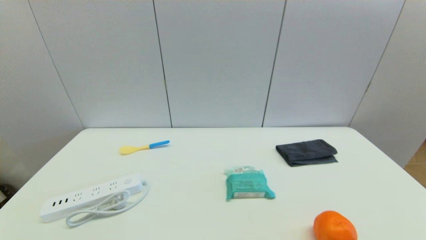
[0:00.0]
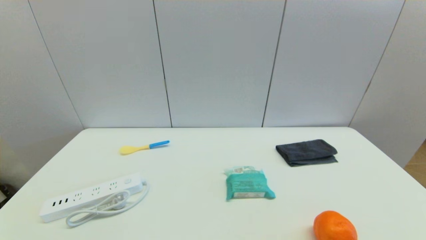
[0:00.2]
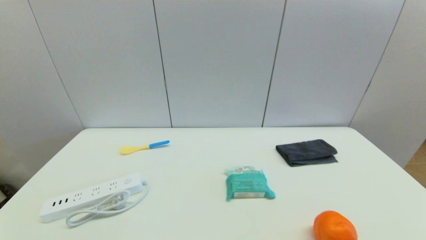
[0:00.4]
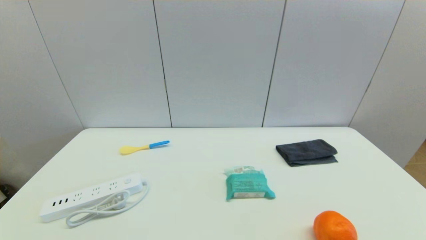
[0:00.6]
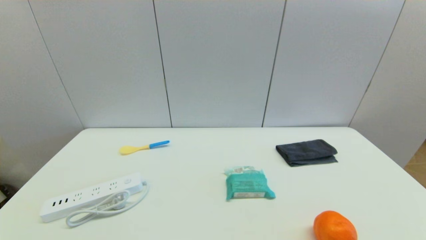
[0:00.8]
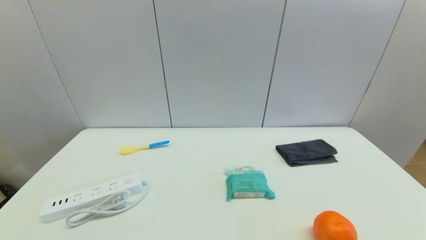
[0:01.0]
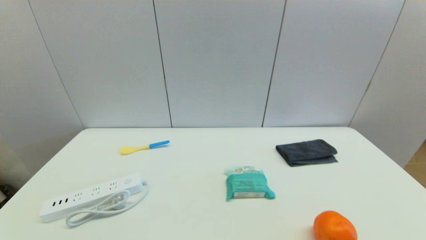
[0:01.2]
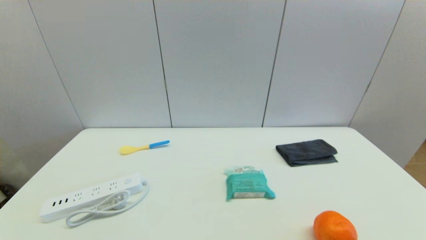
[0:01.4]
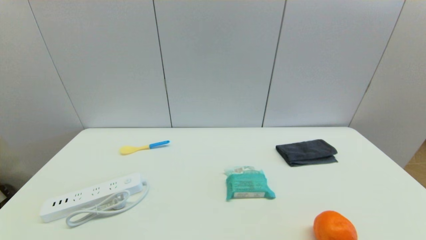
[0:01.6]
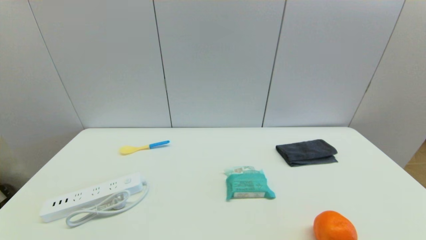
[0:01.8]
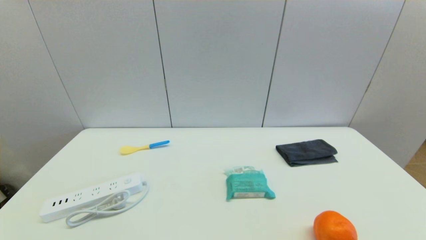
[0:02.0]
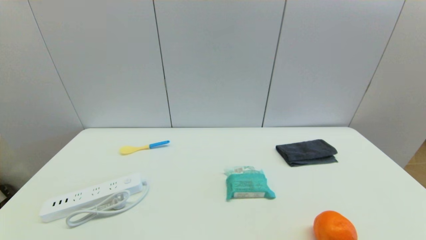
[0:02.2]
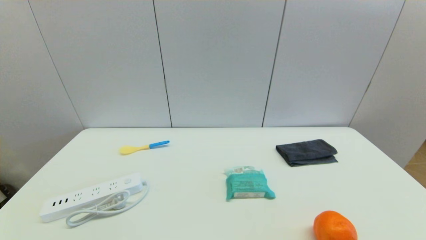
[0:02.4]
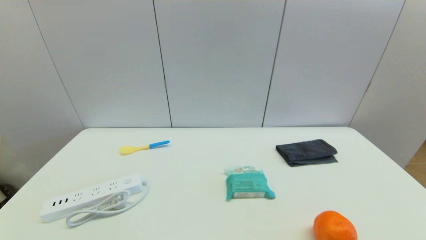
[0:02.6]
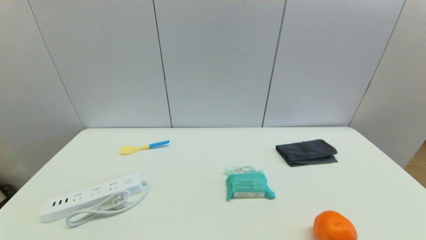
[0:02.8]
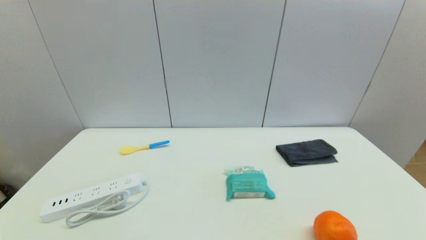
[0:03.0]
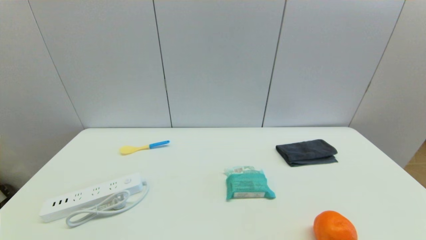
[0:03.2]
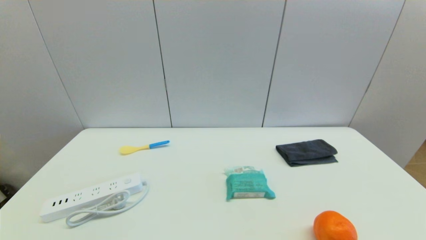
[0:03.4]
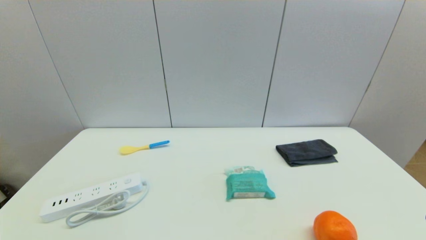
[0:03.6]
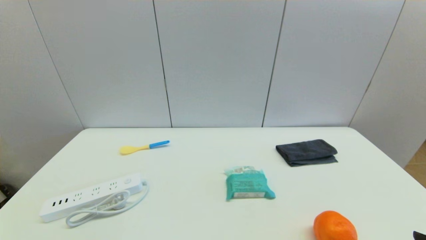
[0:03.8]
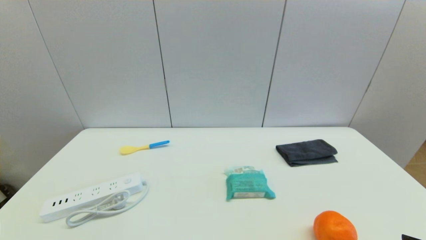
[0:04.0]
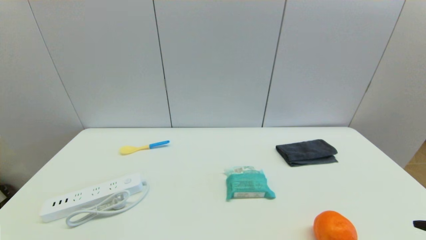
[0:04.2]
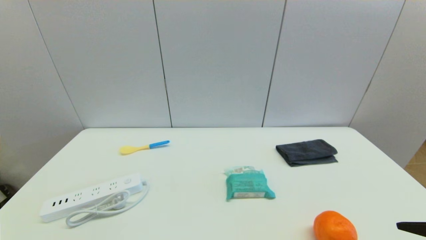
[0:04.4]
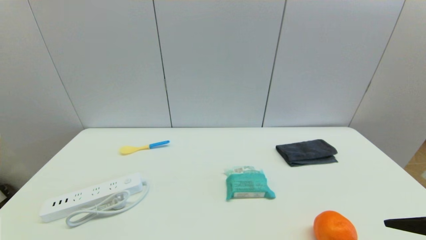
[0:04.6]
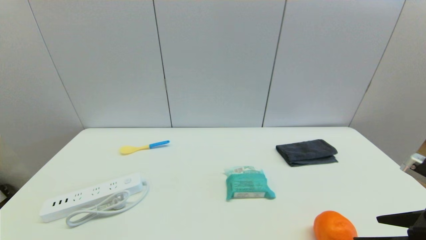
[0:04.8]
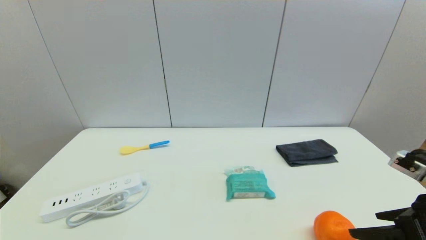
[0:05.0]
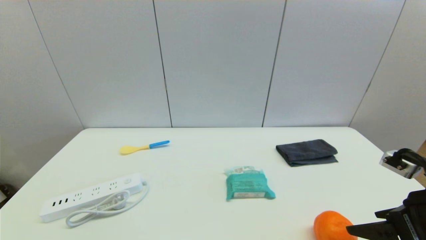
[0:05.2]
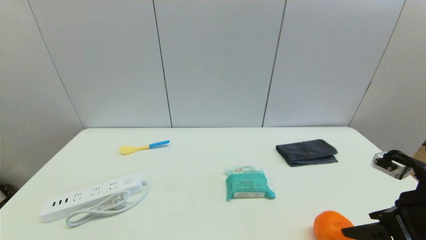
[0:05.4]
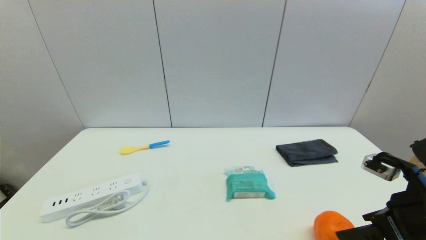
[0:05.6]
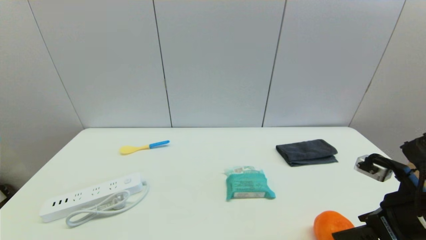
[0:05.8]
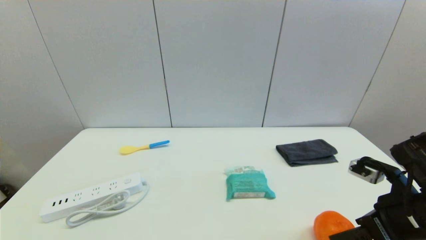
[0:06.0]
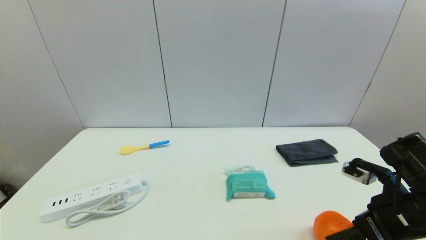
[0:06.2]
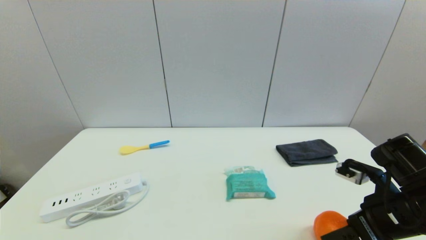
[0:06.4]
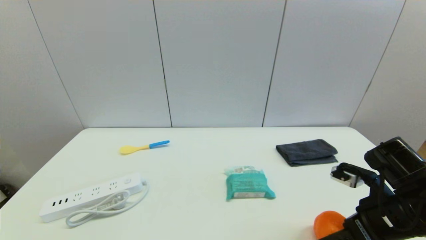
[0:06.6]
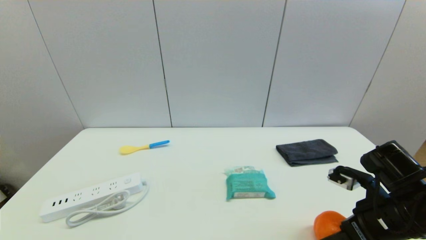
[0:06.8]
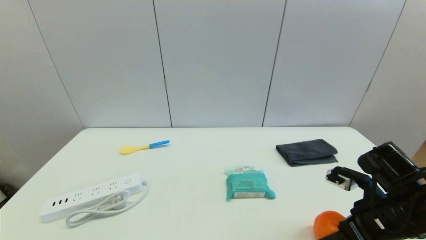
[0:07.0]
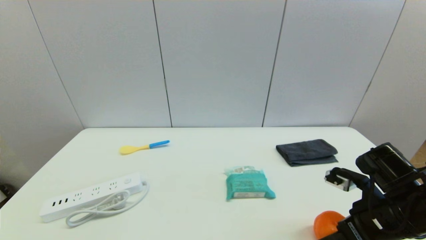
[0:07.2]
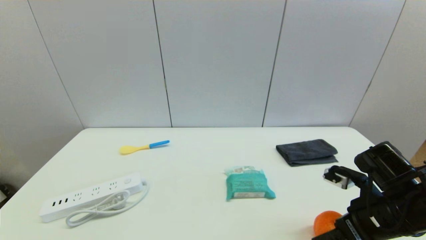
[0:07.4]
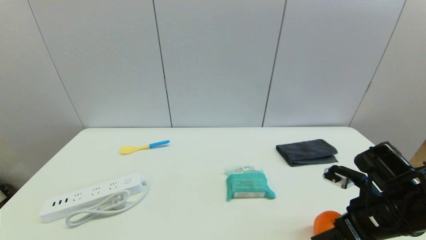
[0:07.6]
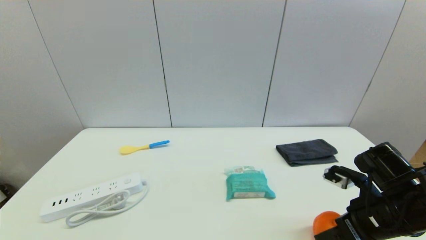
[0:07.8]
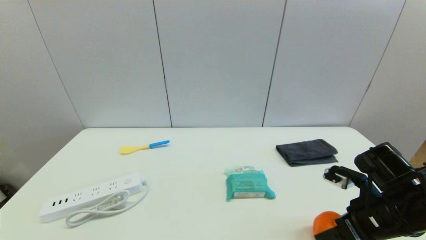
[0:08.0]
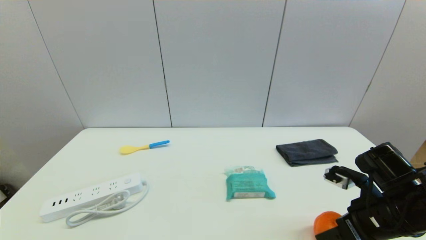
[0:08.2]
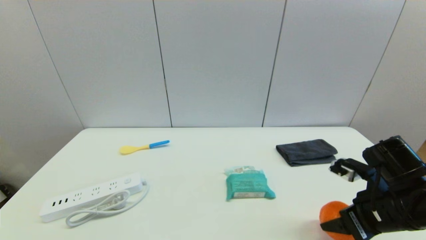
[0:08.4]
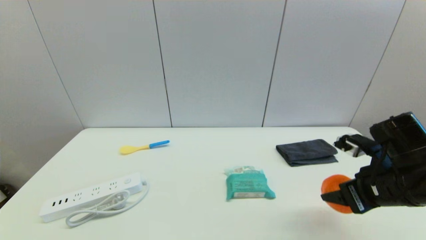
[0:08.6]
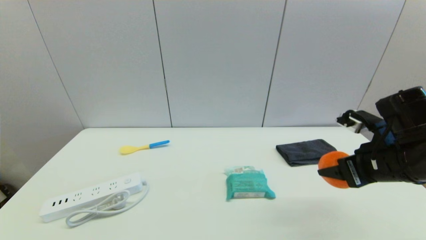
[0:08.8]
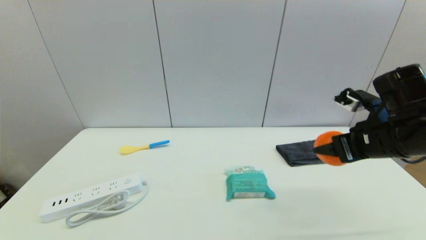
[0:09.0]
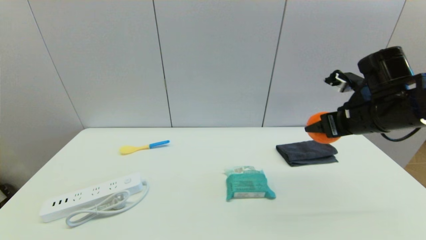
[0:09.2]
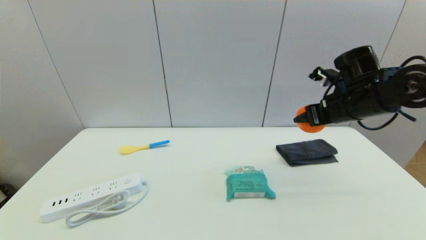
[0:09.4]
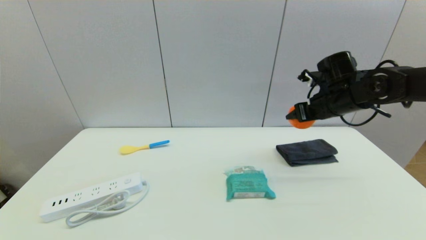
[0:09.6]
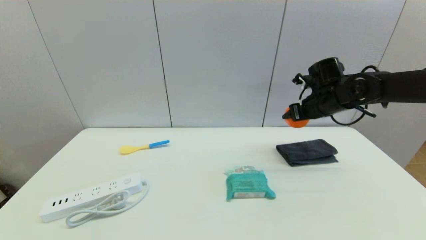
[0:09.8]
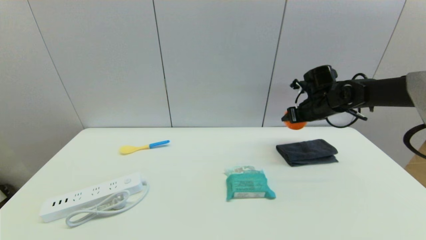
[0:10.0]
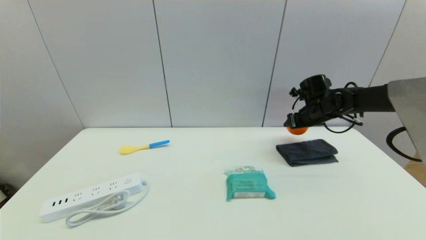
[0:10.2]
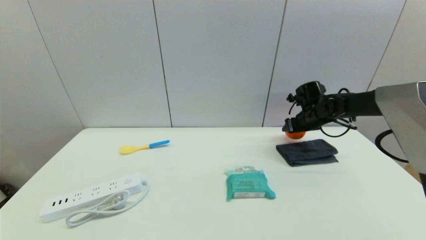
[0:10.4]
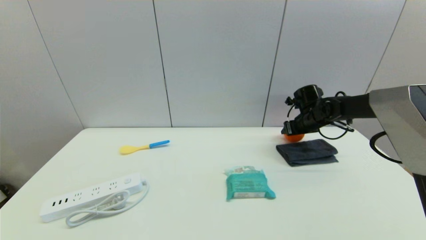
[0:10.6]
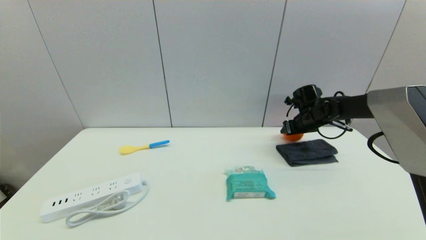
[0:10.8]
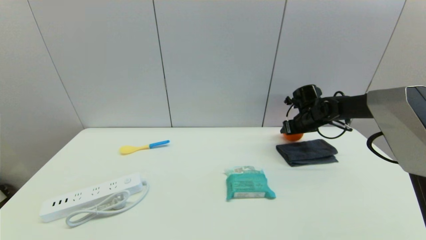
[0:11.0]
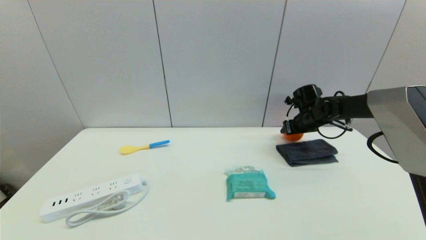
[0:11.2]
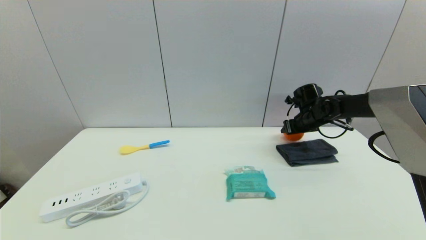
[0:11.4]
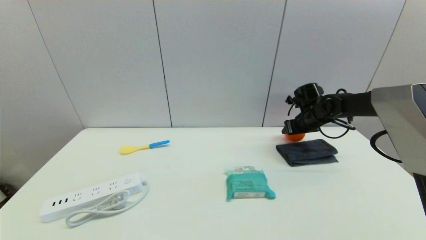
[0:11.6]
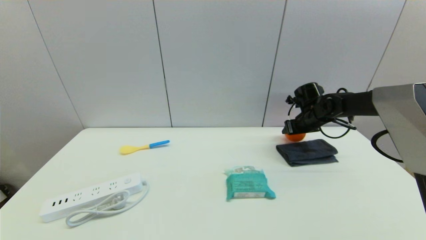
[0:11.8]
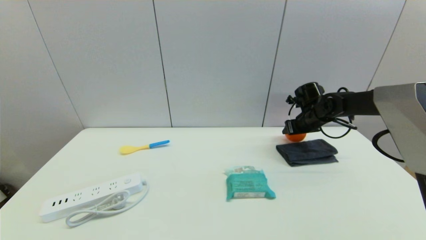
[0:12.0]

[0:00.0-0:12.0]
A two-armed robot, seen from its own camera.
Step, 0:03.8 to 0:08.0: Grasp the orange with right gripper.
0:00.0 to 0:01.6: The two grippers keep their place.
0:04.4 to 0:06.0: The right gripper shifts some 10 cm forward.
0:06.0 to 0:07.6: The grippers make only small movements.
0:07.6 to 0:09.0: The right gripper moves upward and forward, approximately 10 cm, and closes up.
0:09.0 to 0:10.4: The right gripper shifts about 25 cm forward and downward.
0:10.4 to 0:12.0: There are only small adjustments of the grippers.

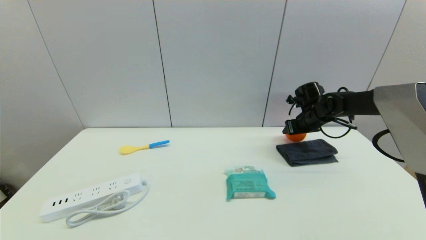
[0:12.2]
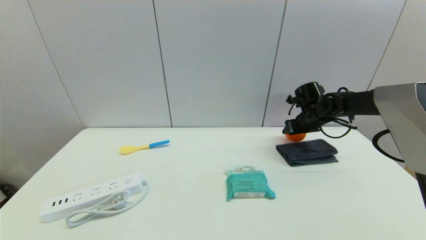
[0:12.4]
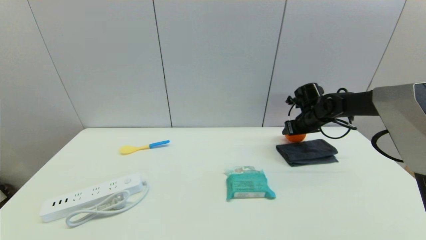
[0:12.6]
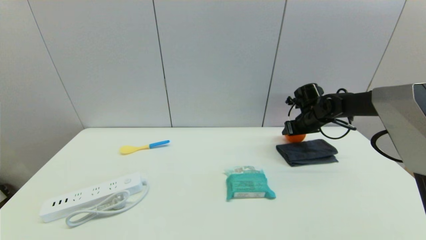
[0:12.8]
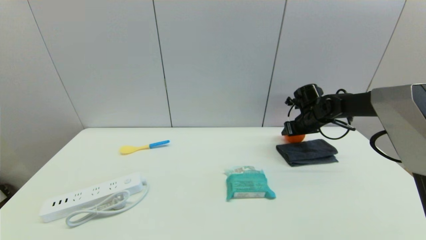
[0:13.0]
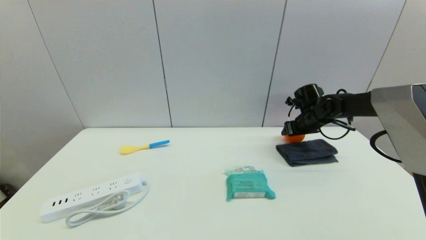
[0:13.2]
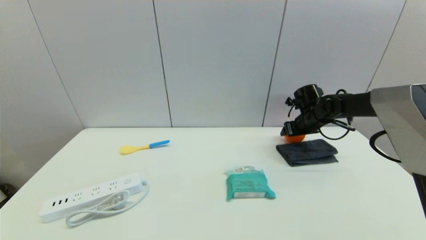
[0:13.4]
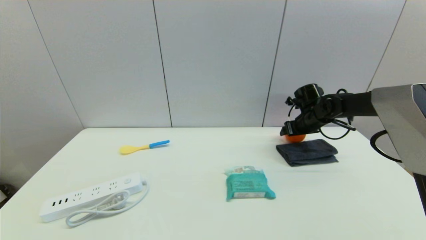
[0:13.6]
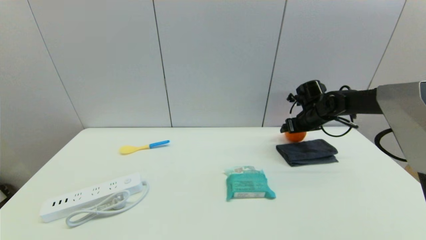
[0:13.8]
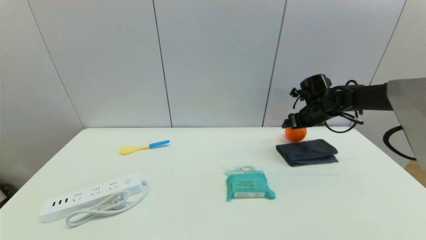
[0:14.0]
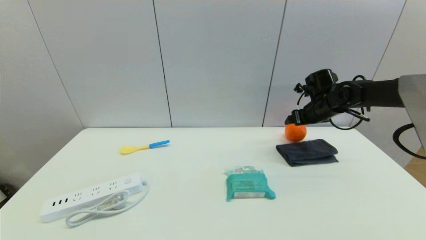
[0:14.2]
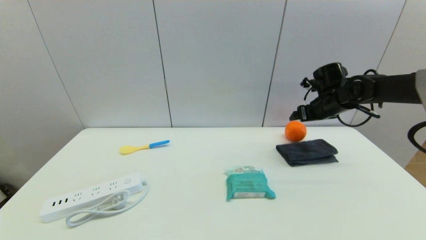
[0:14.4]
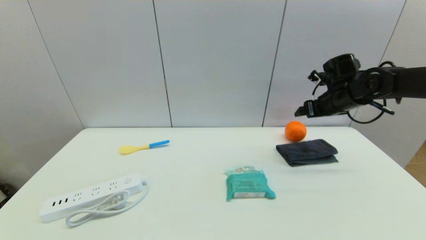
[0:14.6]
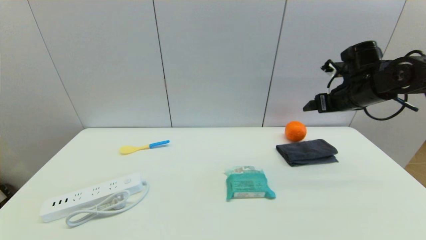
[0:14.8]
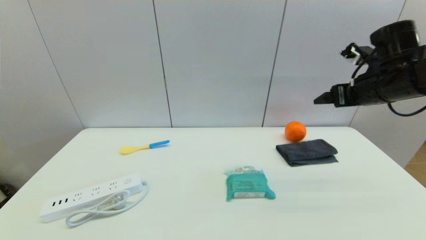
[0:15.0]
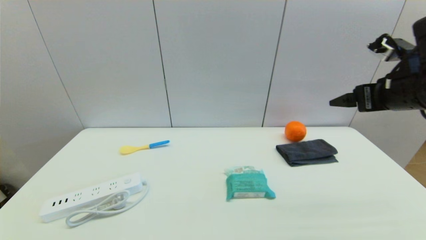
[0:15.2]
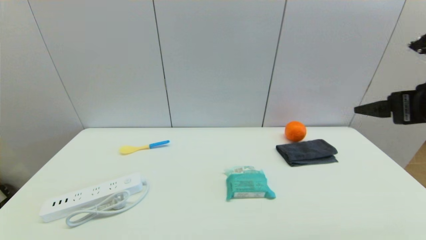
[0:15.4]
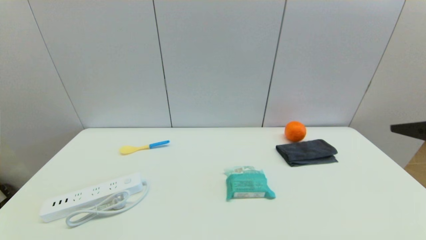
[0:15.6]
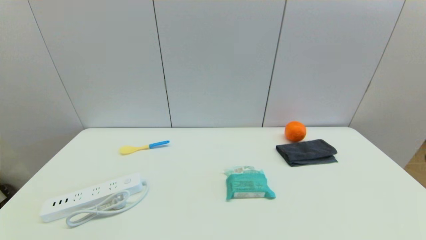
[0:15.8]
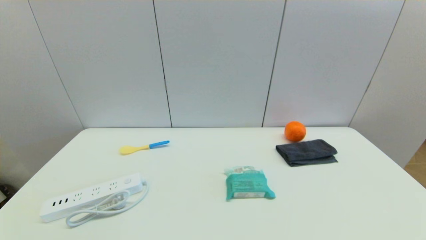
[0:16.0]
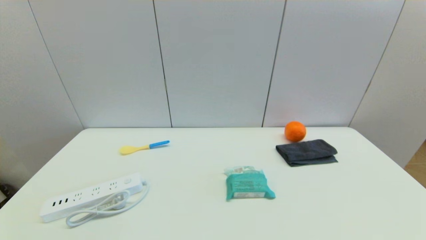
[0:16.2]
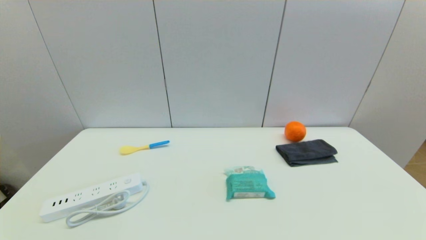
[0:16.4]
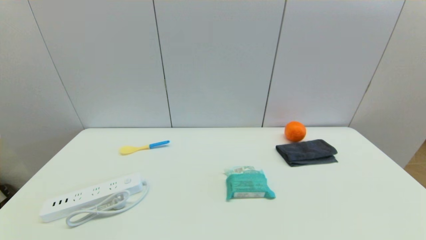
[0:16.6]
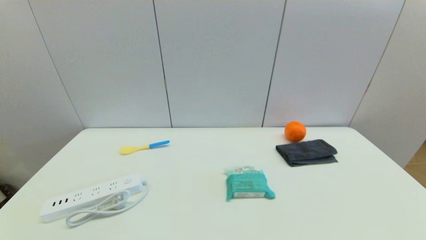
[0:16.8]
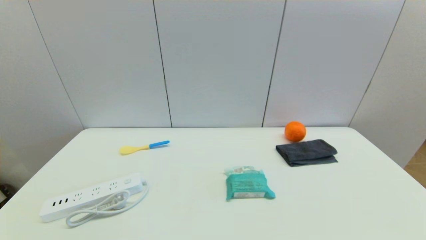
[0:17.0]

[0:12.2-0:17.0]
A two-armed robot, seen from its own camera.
0:12.2 to 0:13.8: The right gripper opens.
0:13.8 to 0:15.4: The right gripper is displaced backward and upward by about 30 cm.
0:15.4 to 0:17.0: The right gripper shifts roughly 25 cm backward and downward.
